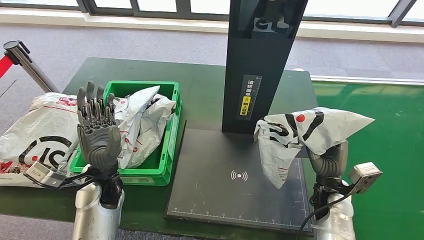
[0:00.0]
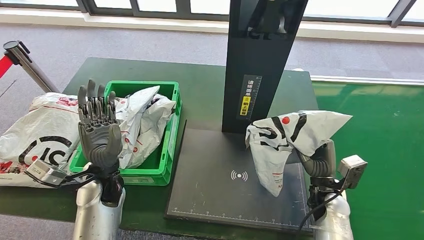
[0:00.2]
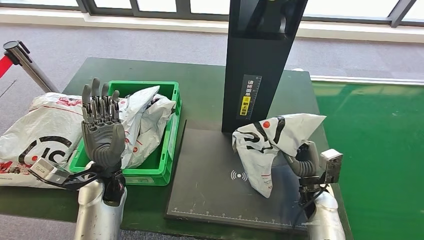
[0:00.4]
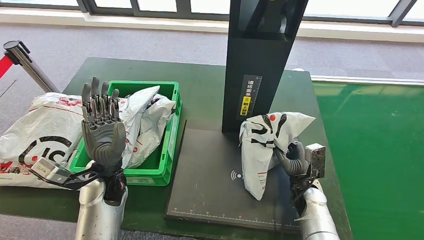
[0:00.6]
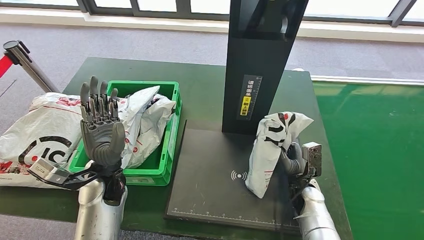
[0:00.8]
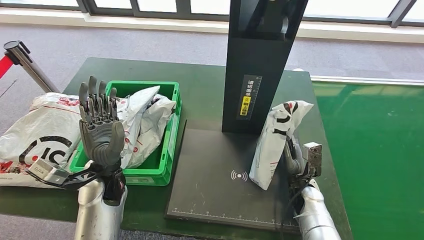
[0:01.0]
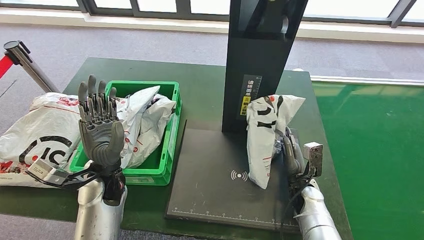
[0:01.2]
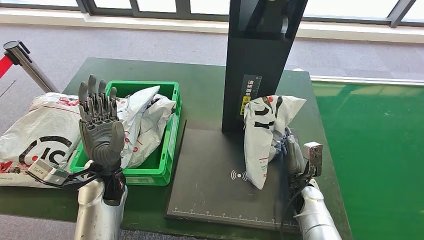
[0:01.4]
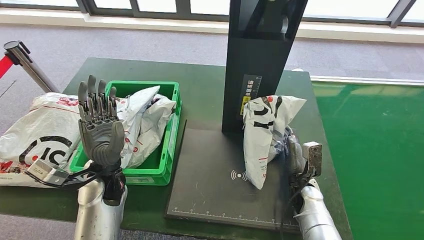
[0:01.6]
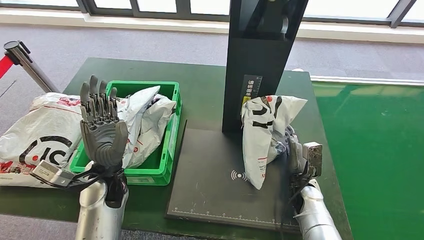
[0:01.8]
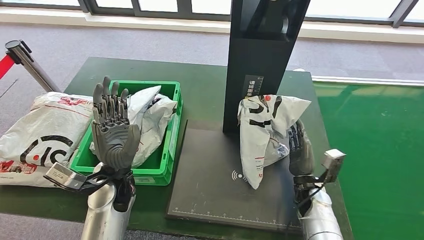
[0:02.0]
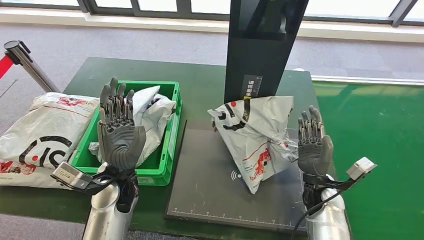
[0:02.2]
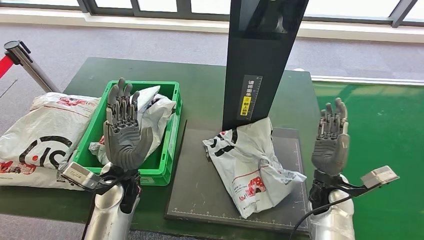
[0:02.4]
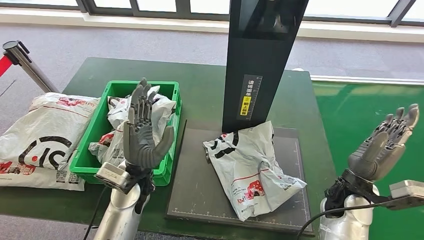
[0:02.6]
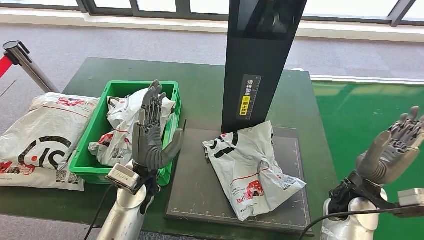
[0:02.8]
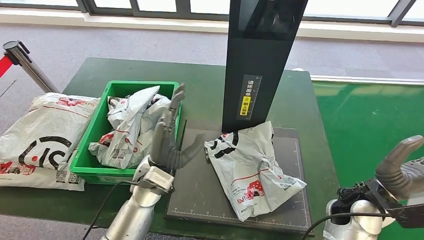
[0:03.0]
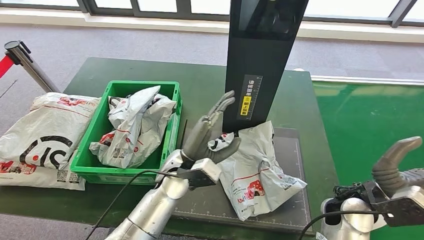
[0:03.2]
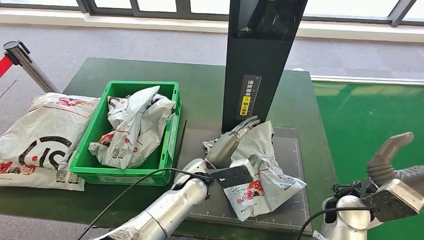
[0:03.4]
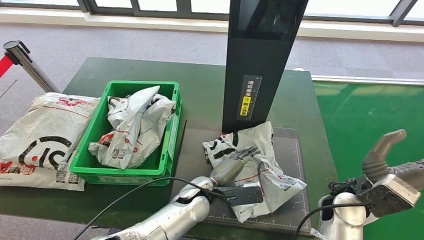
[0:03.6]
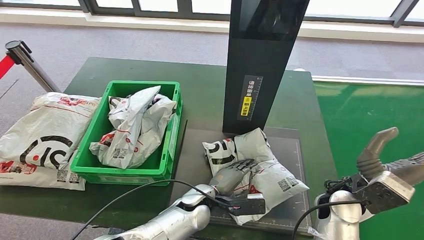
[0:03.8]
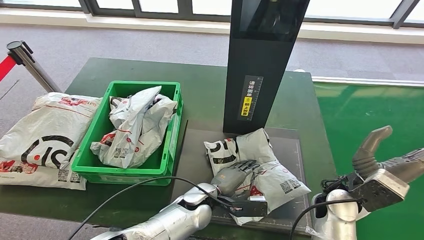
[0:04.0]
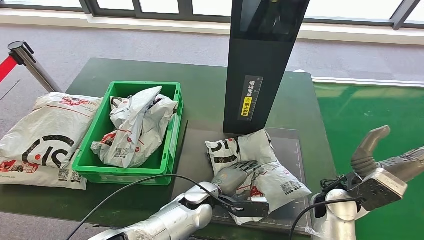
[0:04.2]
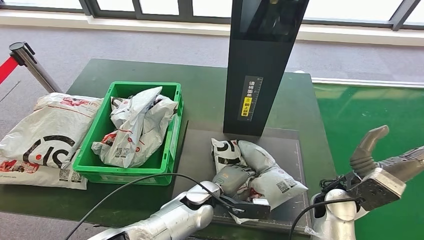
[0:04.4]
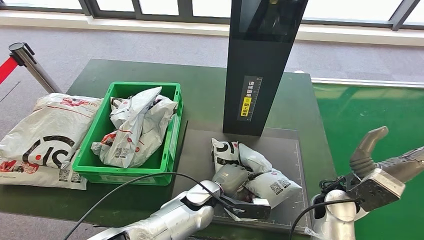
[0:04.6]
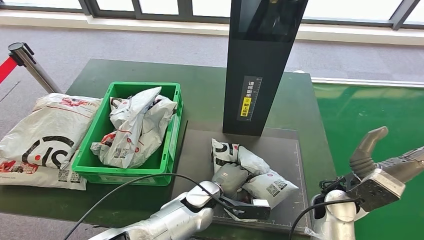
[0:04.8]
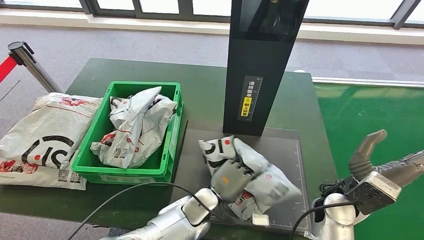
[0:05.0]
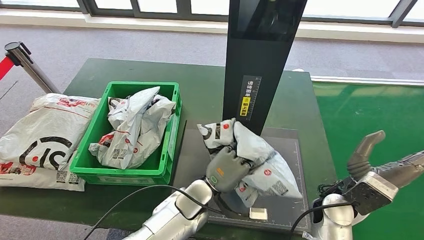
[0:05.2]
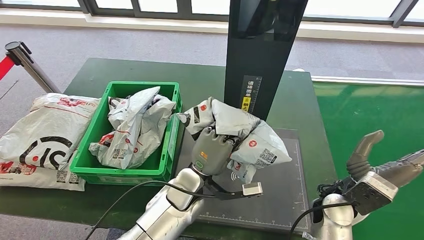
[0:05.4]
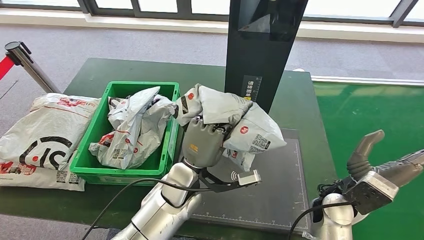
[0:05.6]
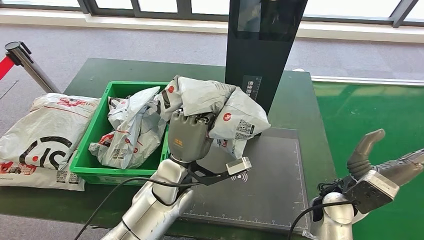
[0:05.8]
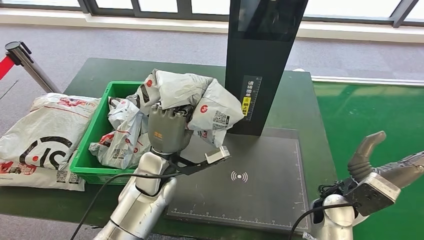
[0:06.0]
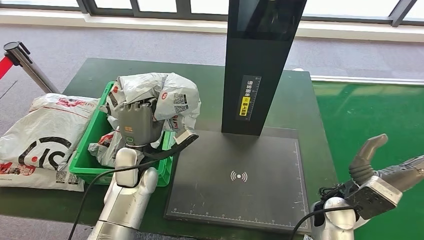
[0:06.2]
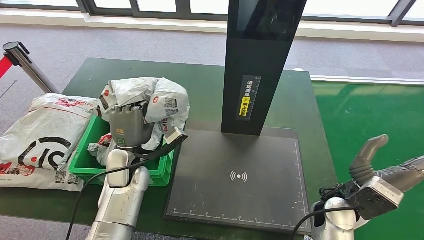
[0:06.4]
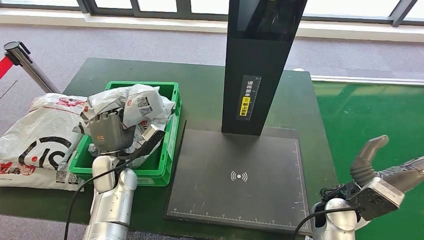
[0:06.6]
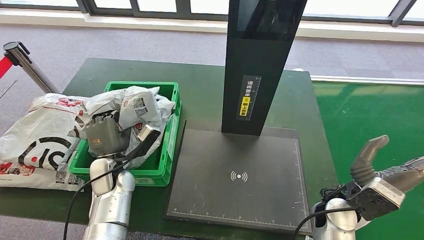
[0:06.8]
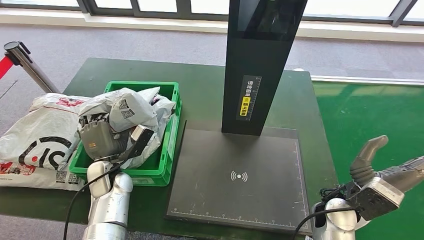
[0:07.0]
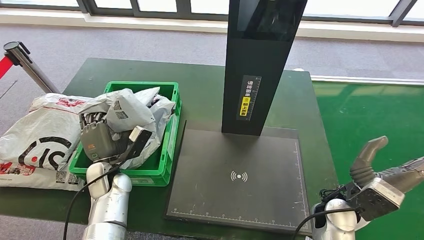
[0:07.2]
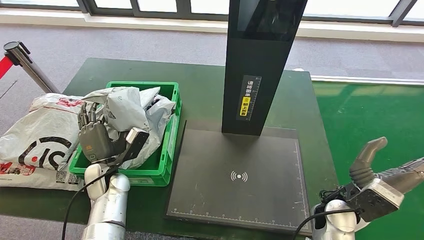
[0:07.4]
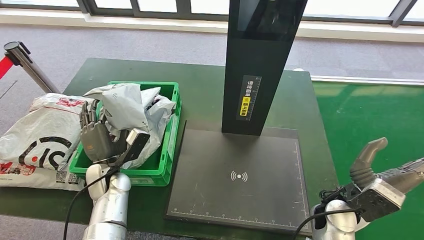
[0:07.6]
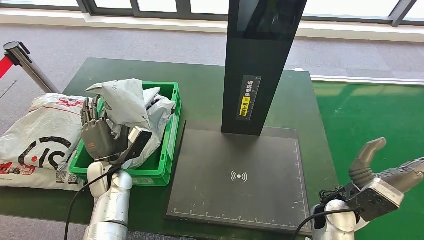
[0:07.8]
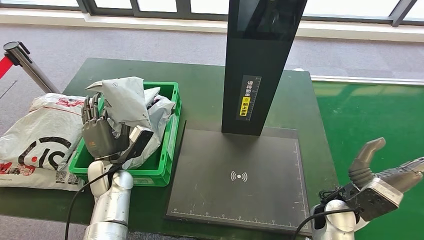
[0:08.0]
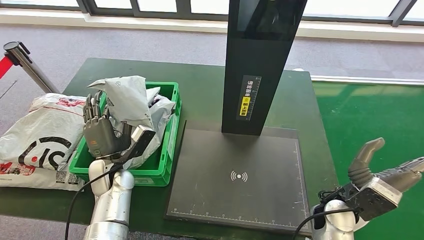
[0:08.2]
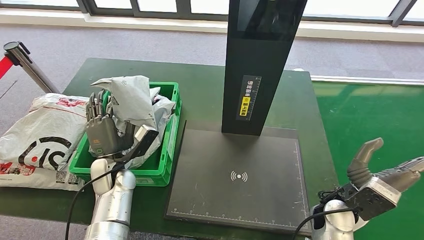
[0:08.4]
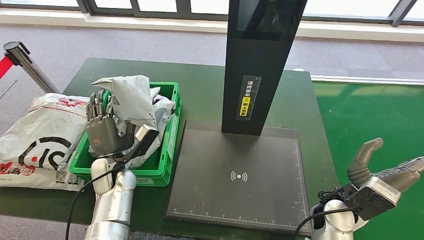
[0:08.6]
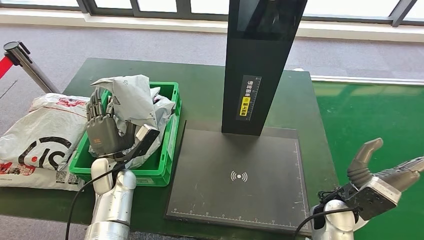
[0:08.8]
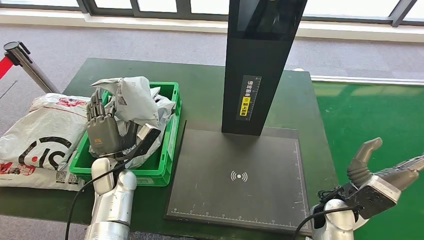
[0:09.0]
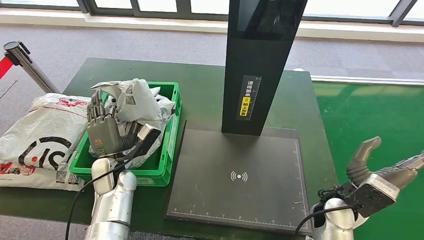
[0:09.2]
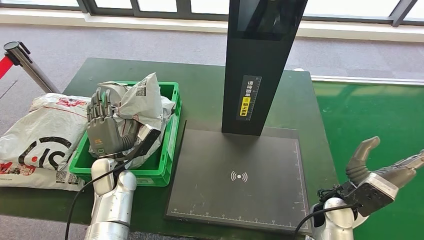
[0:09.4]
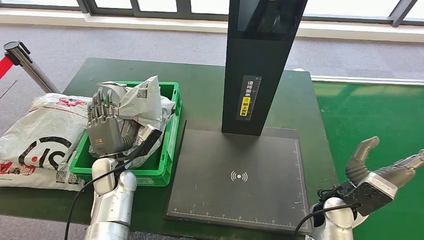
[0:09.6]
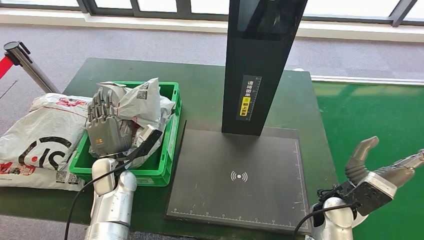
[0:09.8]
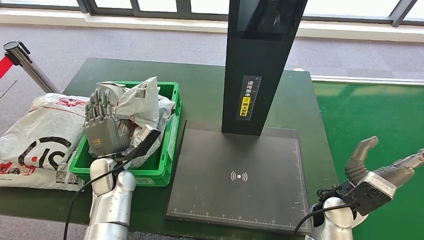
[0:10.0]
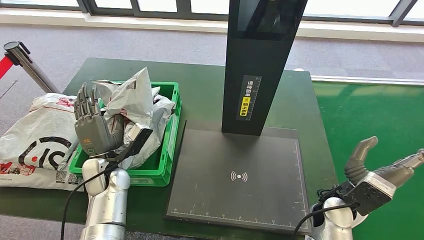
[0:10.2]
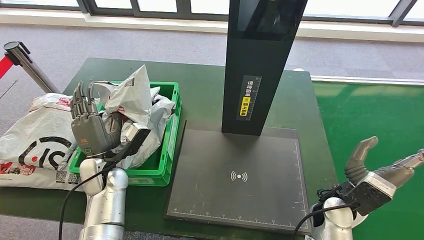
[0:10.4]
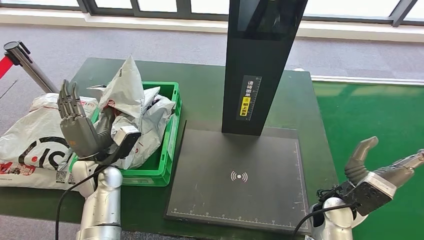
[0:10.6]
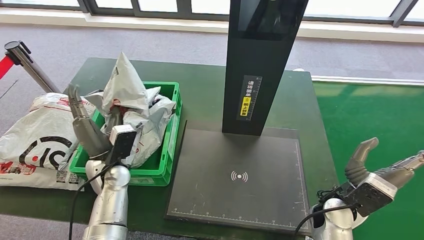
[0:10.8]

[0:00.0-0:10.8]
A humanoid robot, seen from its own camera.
Step, 0:00.0 to 0:02.6: Place the parcel onto the inbound machine.
Step, 0:03.2 to 0:05.2: Pick up the parcel from the inbound machine.
0:00.0 to 0:01.6: The right hand shifts approximately 5 cm downward.
0:06.2 to 0:07.8: The left hand travels to the left and downward by some 10 cm.
0:07.8 to 0:09.2: The hands move only a little.

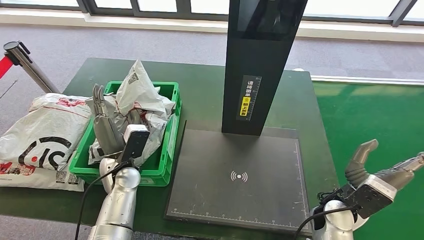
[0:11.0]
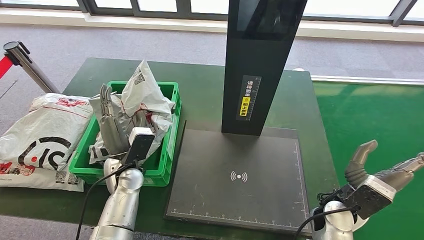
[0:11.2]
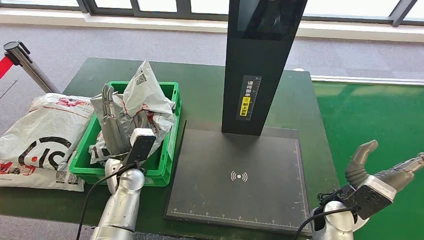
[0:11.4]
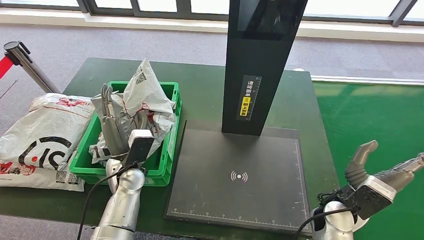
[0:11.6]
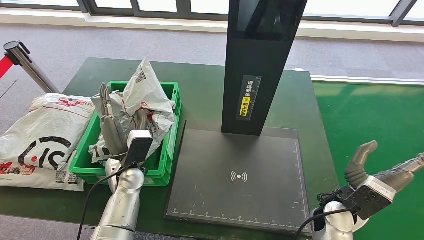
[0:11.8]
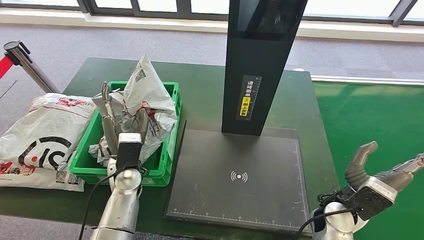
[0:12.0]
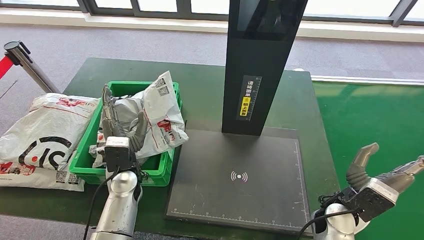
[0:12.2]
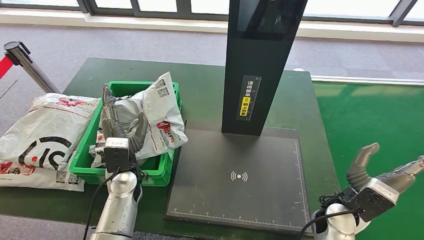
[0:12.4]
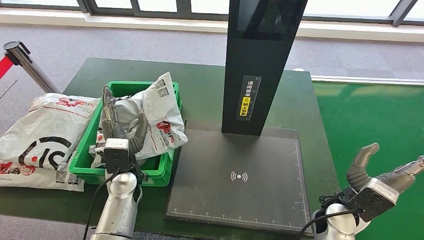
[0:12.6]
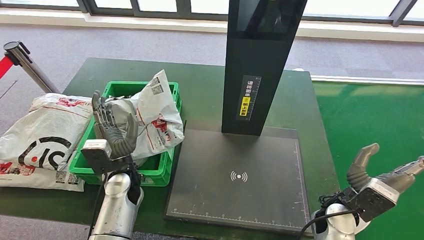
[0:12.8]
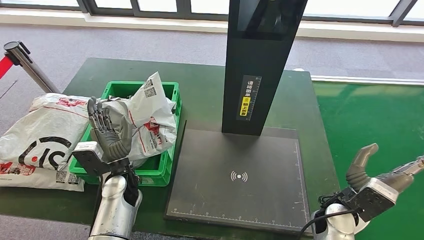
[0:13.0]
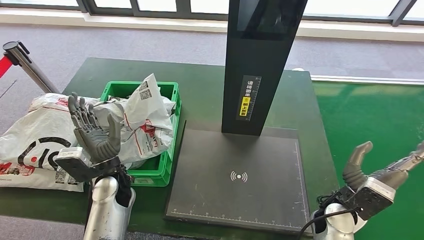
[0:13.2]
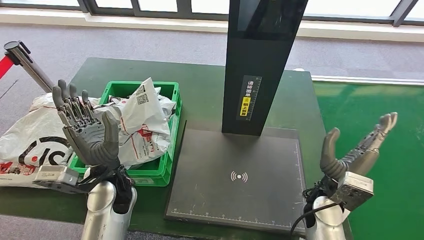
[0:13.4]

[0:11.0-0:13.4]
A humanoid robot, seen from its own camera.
Step, 0:11.0 to 0:13.4: Place the parcel into the delivery box.
0:12.2 to 0:13.4: The left hand moves upward, about 5 cm.
